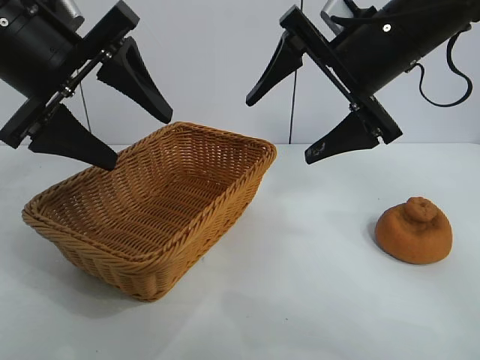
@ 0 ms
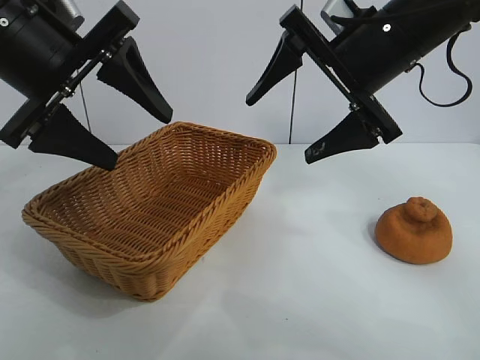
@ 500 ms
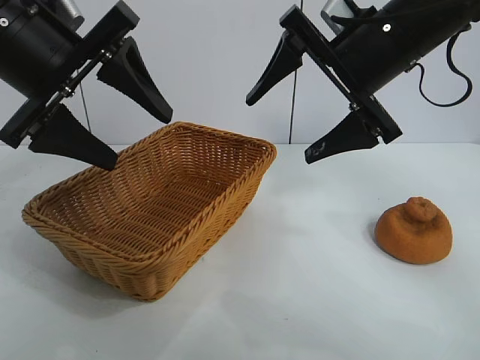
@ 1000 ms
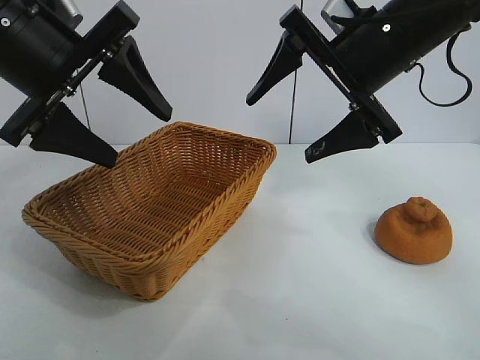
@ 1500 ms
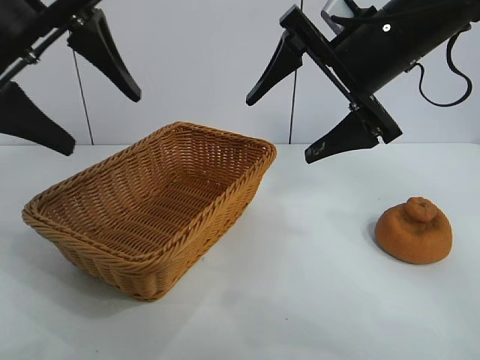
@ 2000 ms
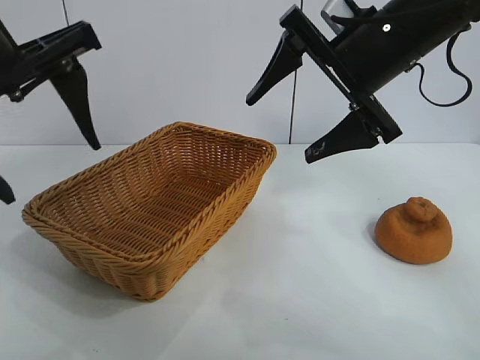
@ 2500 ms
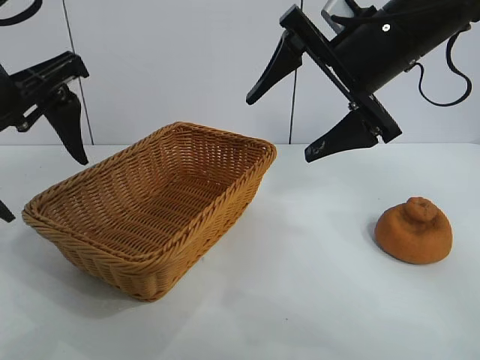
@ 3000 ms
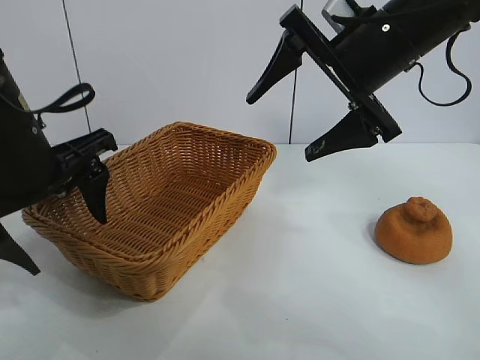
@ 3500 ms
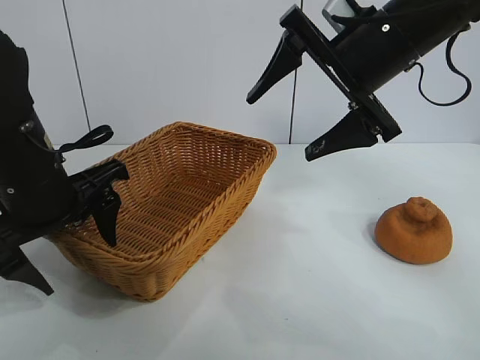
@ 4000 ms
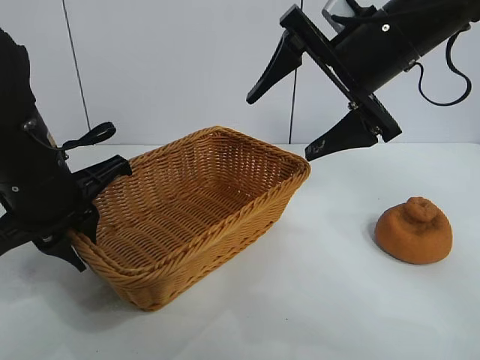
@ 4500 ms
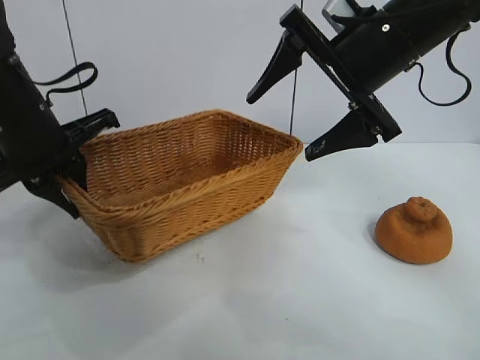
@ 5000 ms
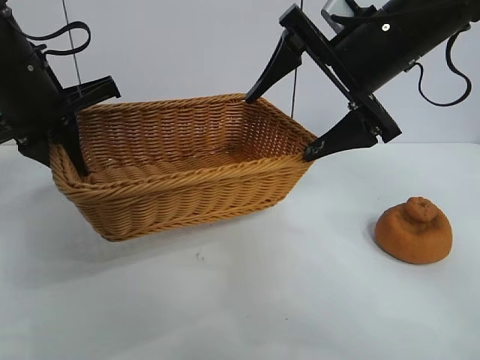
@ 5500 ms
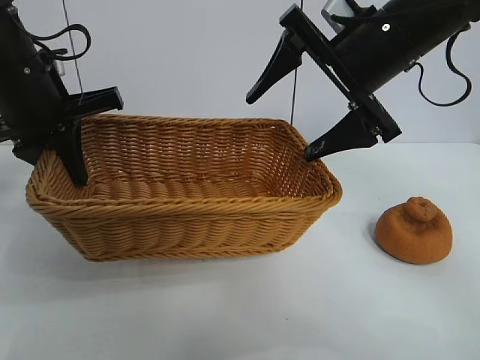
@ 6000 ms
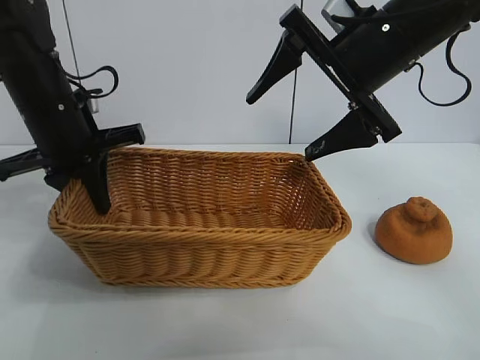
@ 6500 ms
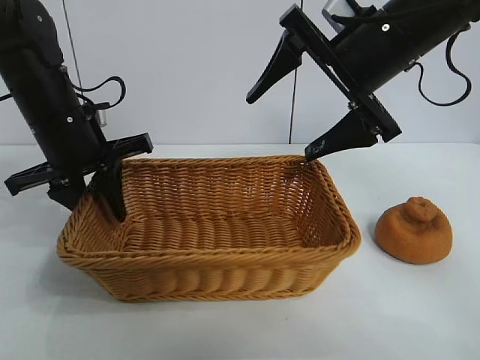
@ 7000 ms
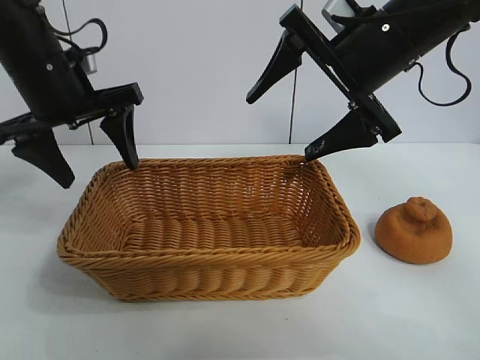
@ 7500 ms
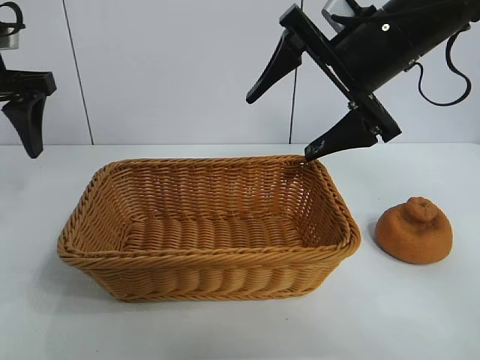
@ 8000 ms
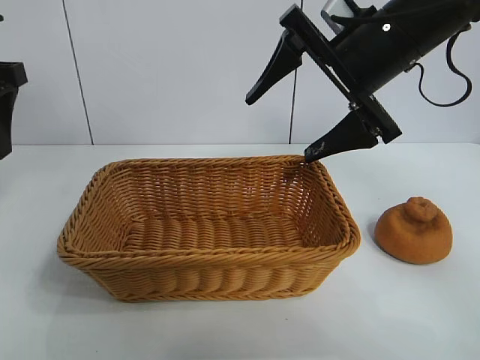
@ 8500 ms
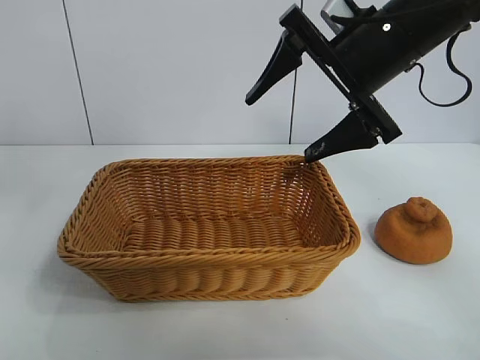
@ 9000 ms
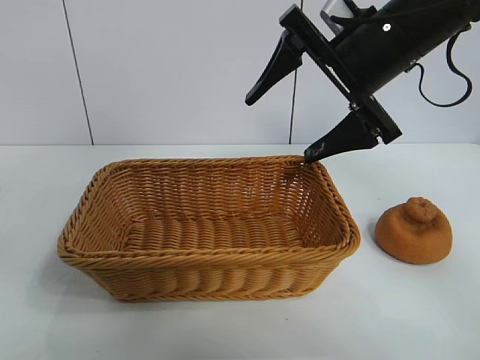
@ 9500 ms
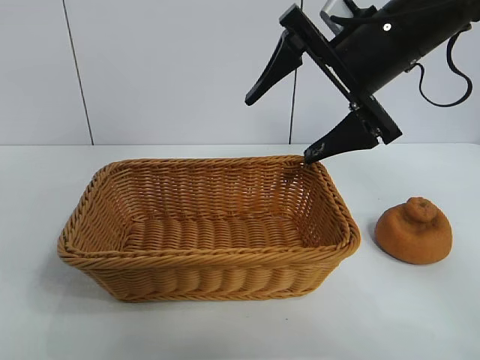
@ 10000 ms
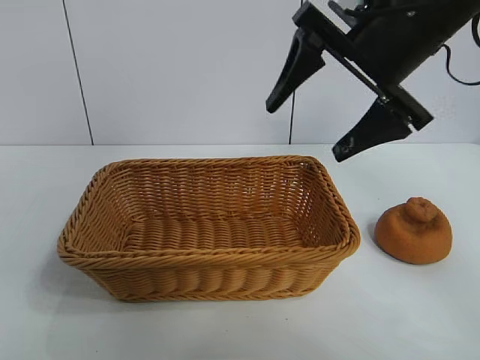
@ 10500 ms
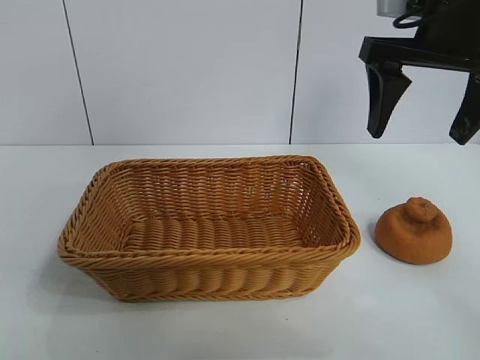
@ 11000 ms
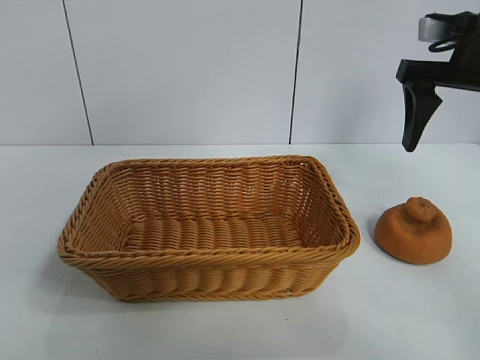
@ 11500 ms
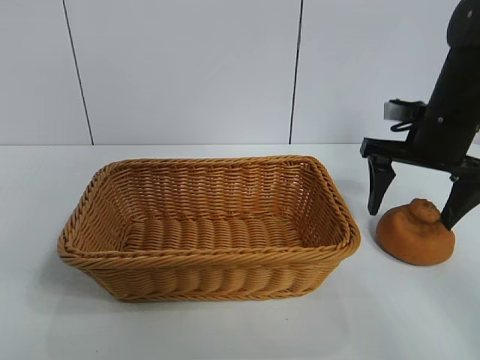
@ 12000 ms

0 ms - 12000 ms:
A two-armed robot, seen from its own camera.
Task of the whole recording: pick up the orange and put it into the basket.
Step, 1500 ms - 4000 ms: Grasp the basket with left gripper.
Step, 4500 ms - 7000 ms: Place the basket in the center of view with left gripper.

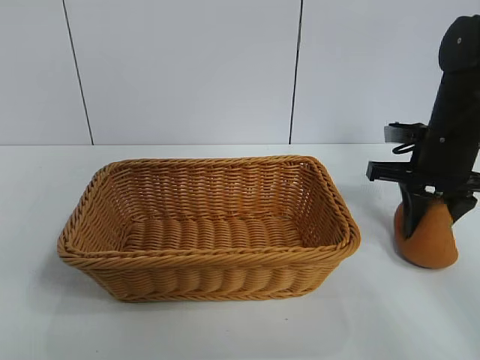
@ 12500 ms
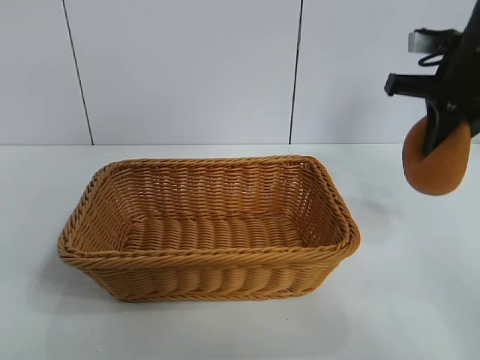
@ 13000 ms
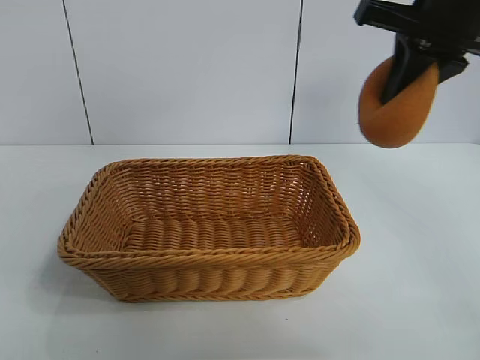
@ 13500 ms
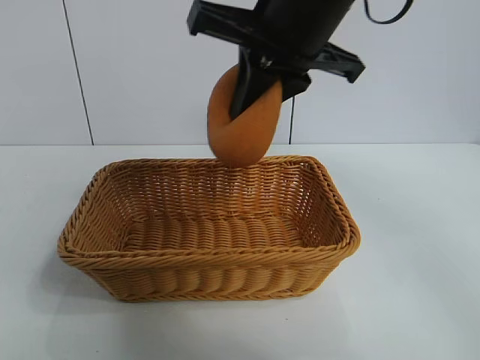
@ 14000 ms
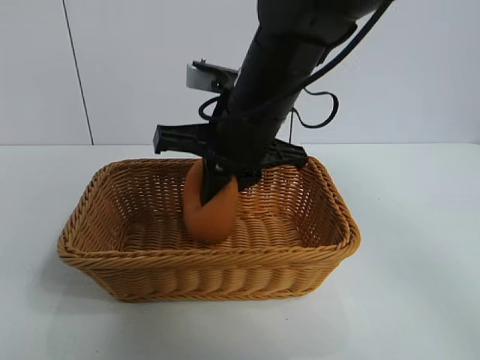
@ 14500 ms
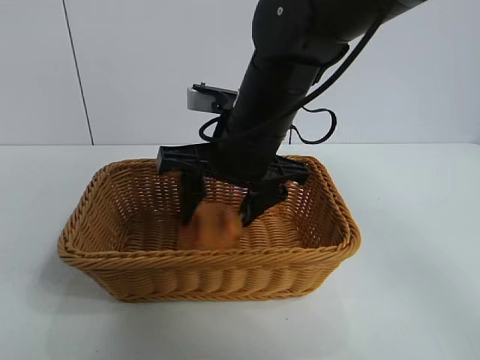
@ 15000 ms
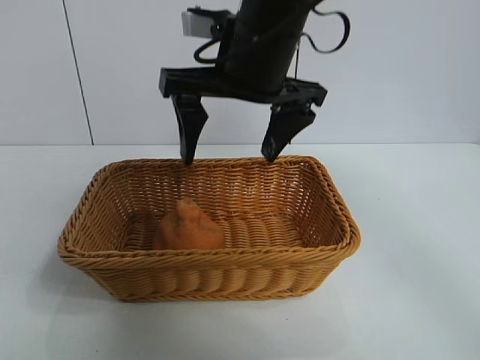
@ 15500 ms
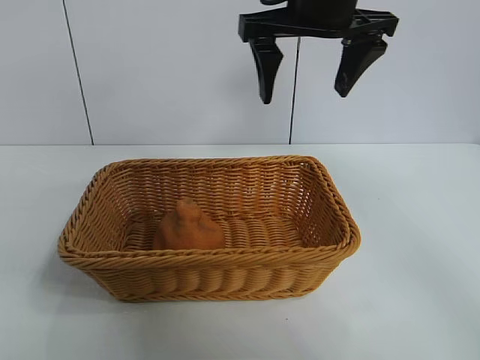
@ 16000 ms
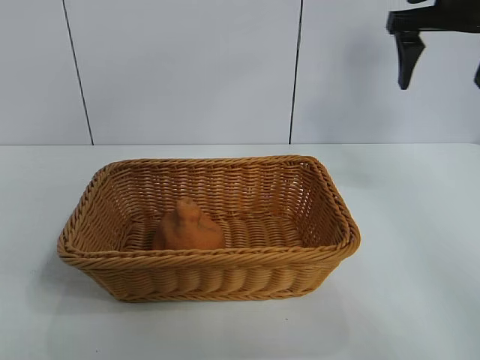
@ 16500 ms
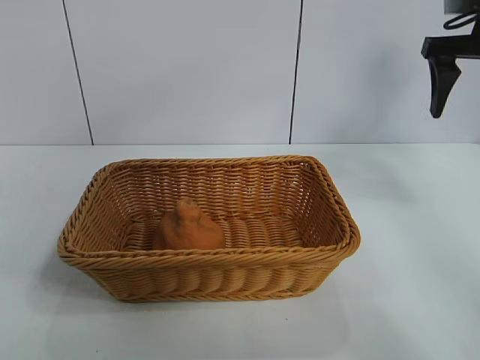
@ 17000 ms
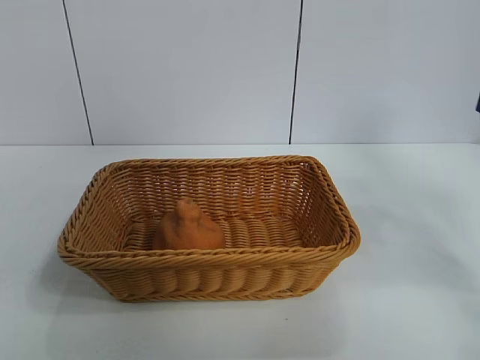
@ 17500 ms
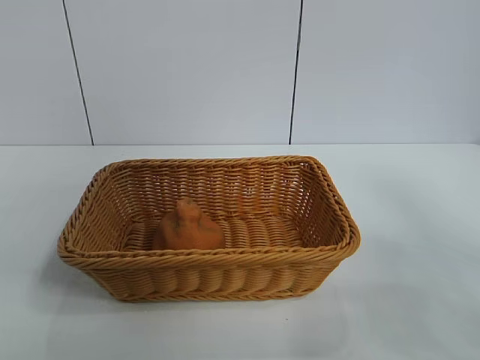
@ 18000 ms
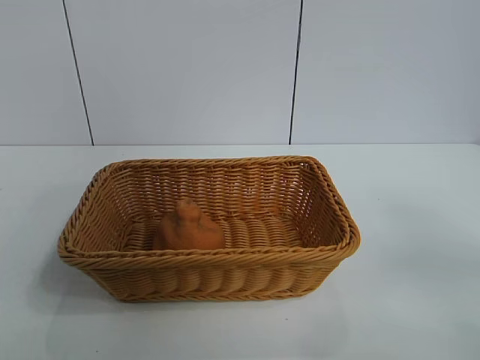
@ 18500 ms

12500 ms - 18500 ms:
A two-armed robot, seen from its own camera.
Task of the whole recording: pick up the orange and put it into the basket.
Step, 13000 ms - 15000 ms: Place the orange in the basket with right gripper.

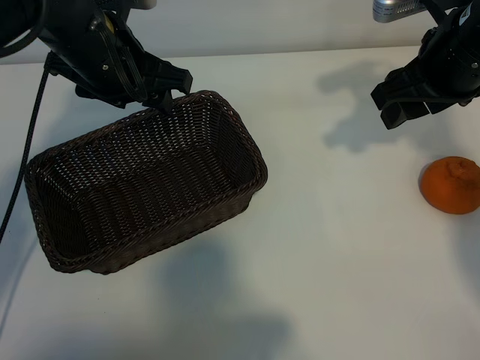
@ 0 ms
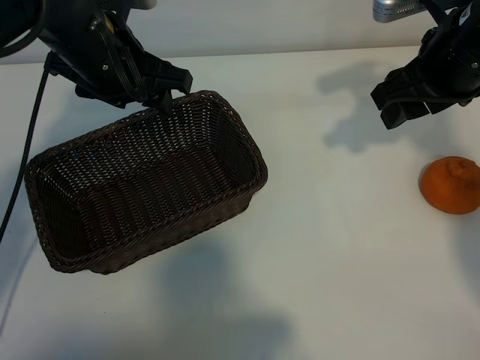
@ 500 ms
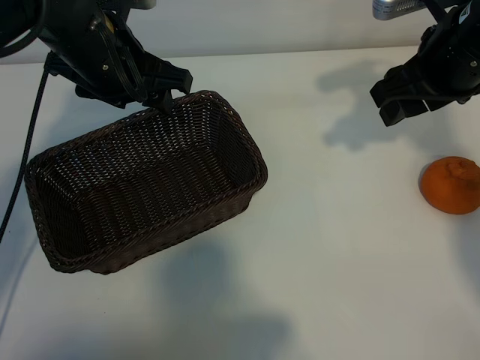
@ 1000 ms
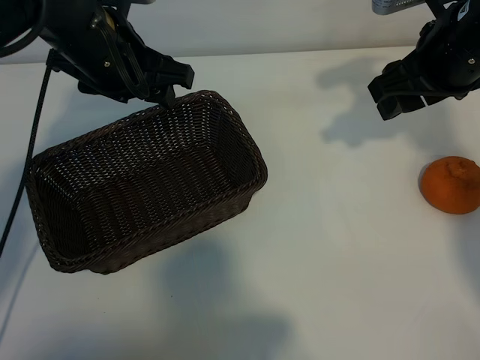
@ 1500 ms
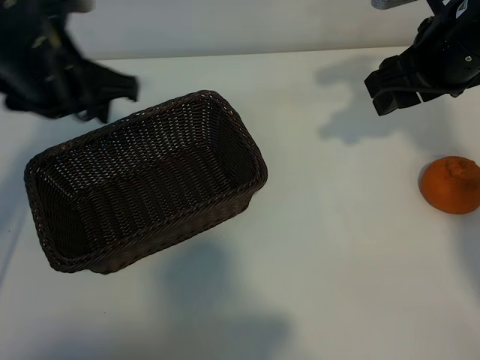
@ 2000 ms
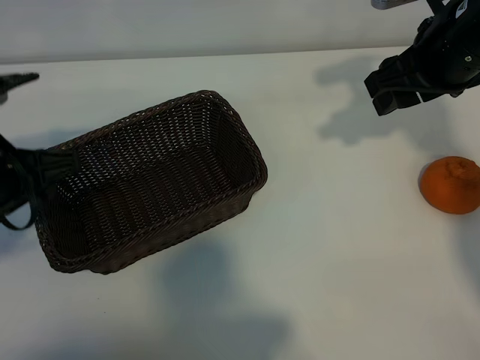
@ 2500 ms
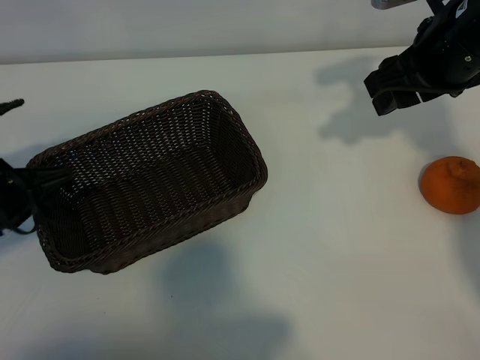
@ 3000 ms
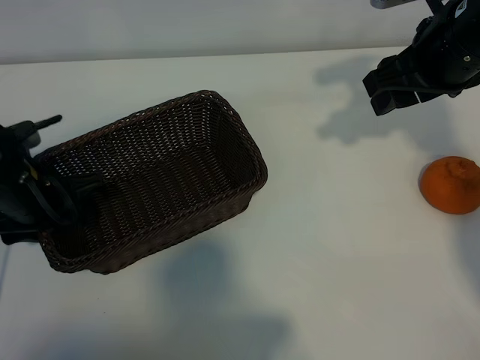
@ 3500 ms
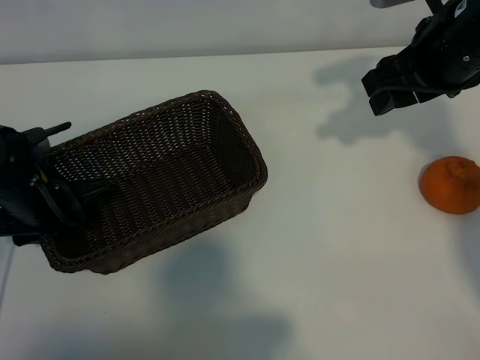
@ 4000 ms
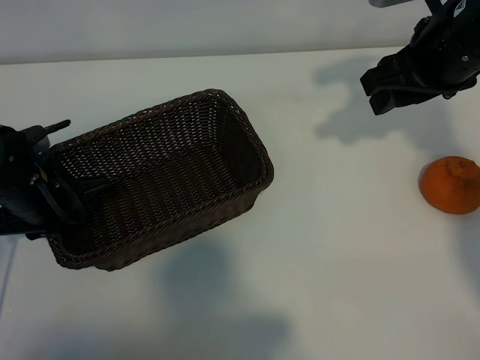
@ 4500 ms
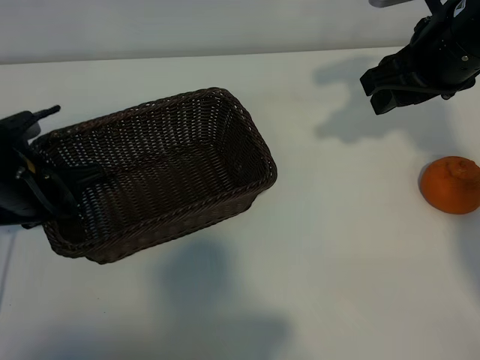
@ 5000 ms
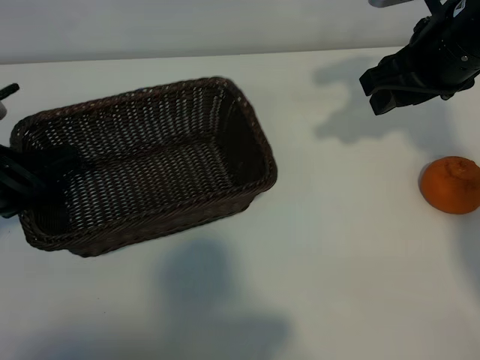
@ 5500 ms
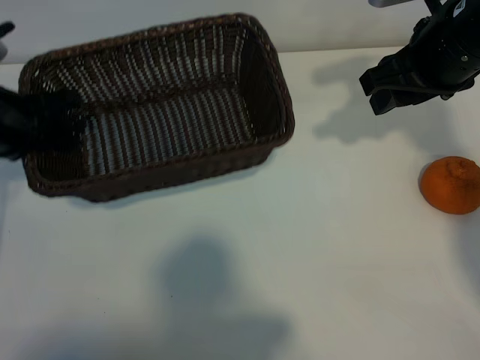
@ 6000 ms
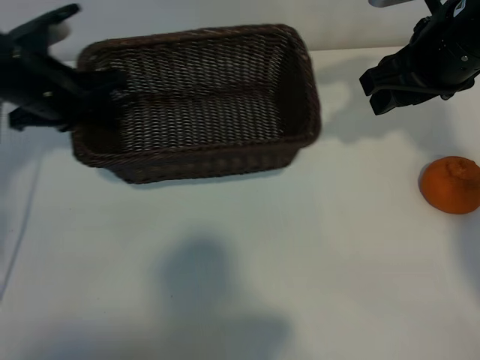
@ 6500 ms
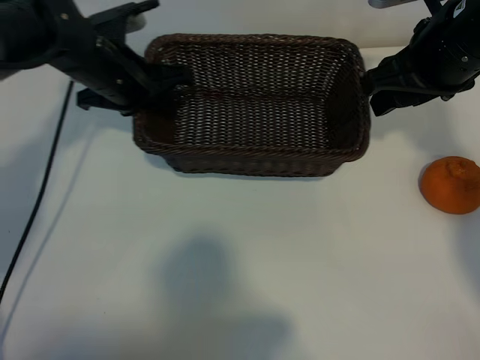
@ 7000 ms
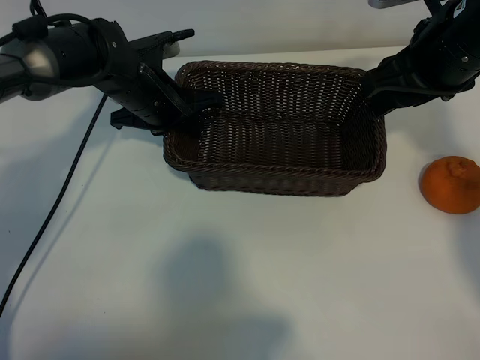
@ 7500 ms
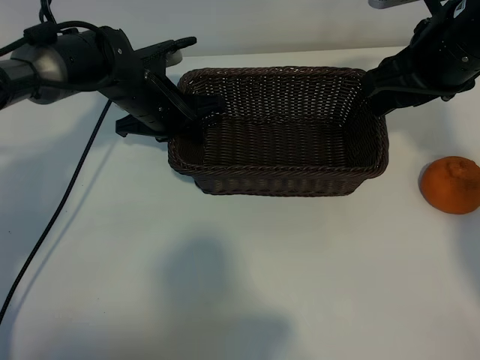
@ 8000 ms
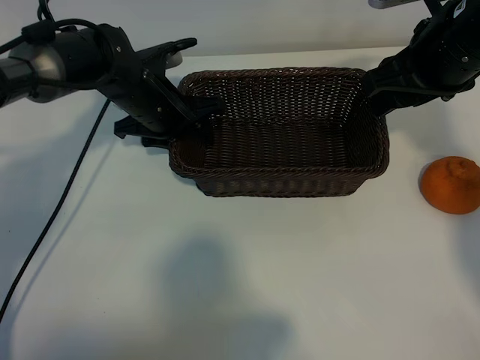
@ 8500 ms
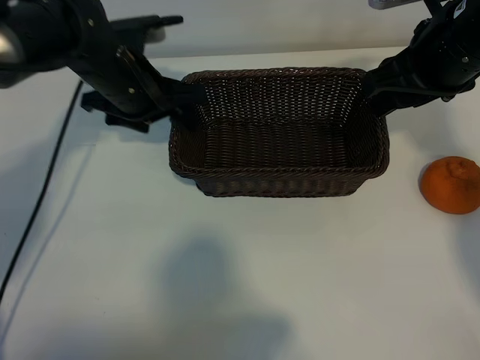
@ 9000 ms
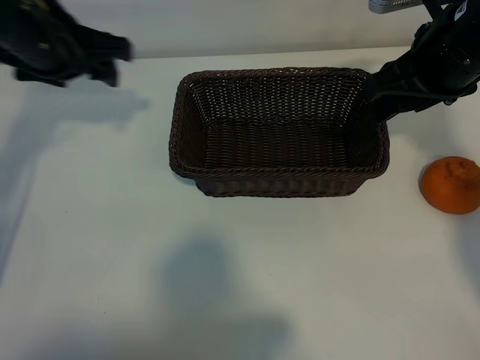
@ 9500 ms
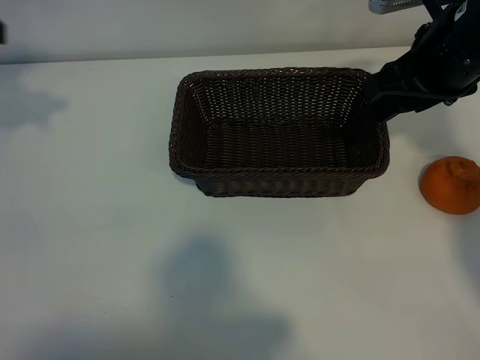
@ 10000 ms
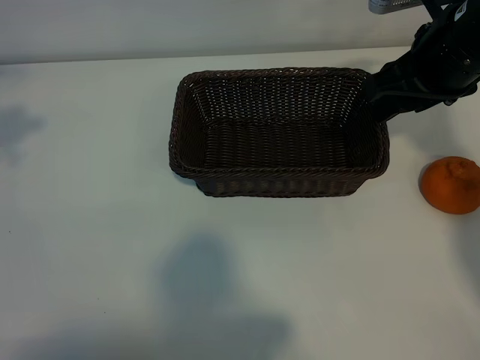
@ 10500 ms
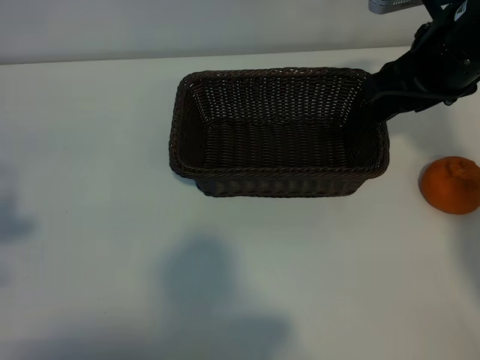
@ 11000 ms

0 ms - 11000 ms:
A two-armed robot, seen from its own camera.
Task of the whole recording: pick up the orange and put it into the basket.
Step, 1000 ms - 4000 ms: Grasp the basket with left gripper.
Step, 4500 ms - 8000 ms: Place the basket in the center of view with left gripper.
